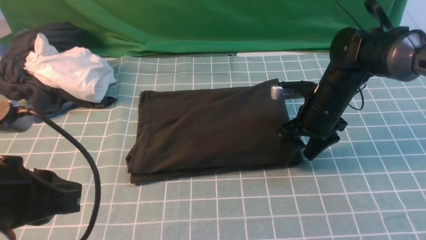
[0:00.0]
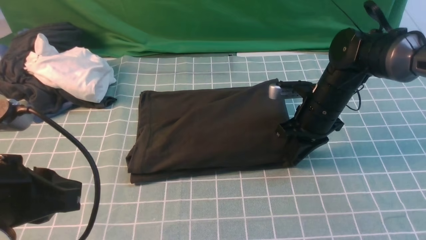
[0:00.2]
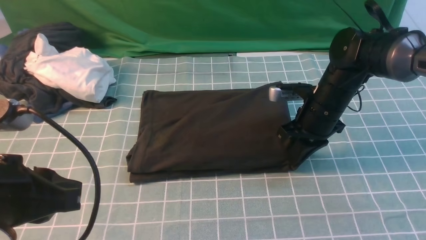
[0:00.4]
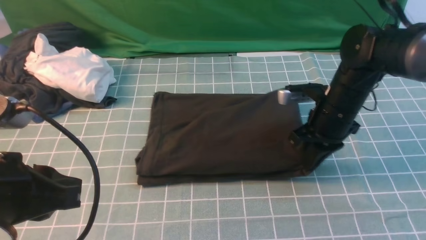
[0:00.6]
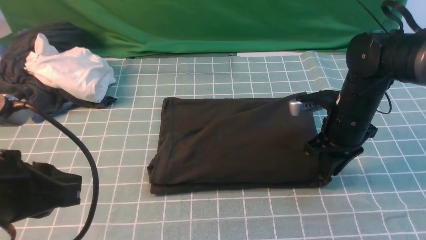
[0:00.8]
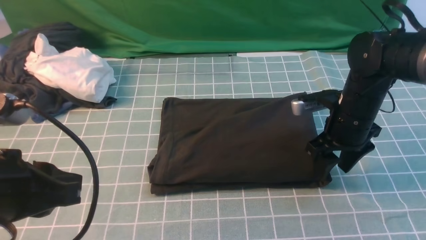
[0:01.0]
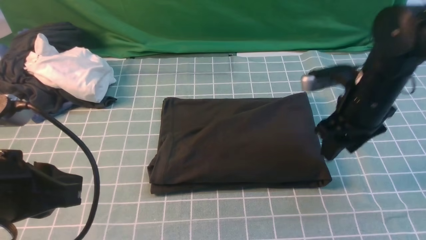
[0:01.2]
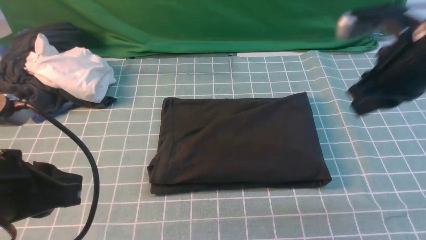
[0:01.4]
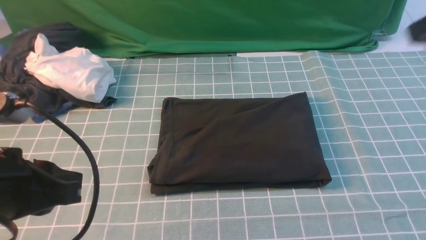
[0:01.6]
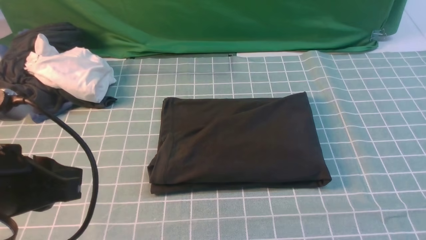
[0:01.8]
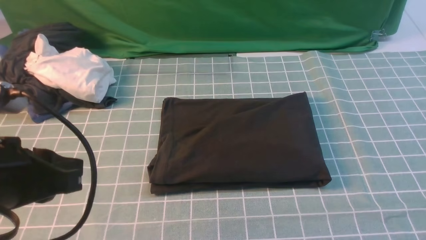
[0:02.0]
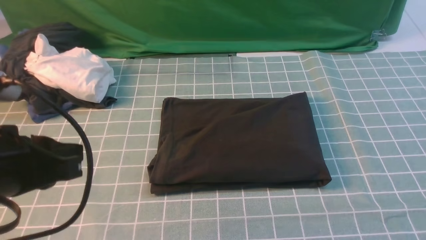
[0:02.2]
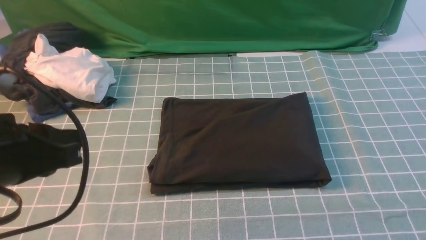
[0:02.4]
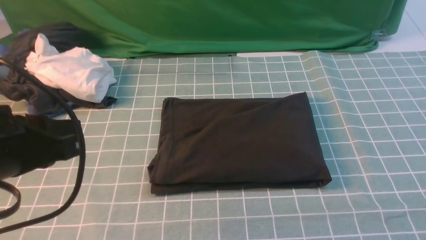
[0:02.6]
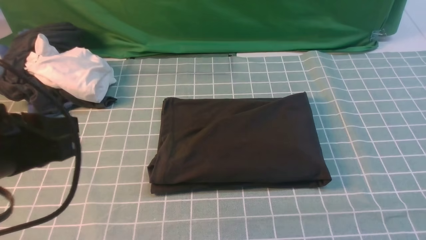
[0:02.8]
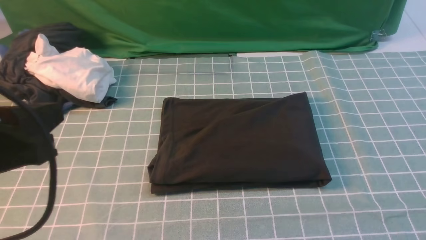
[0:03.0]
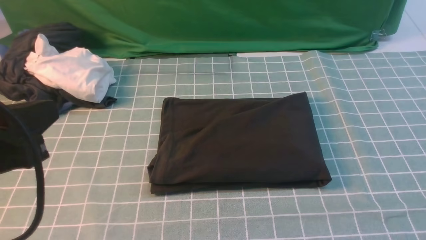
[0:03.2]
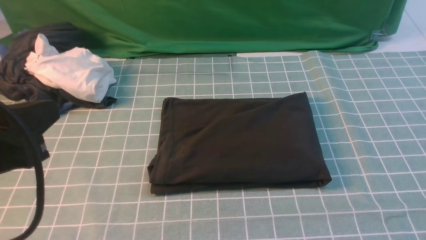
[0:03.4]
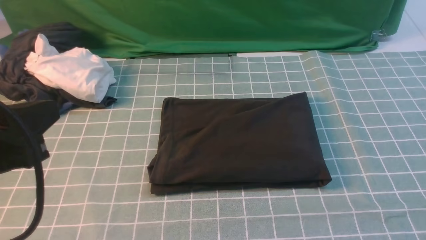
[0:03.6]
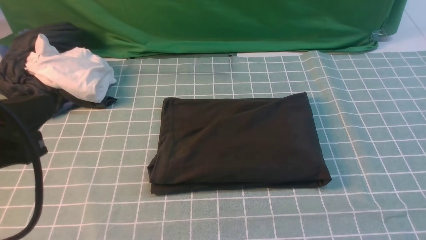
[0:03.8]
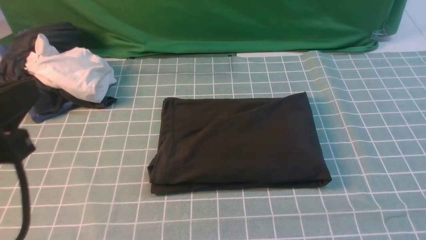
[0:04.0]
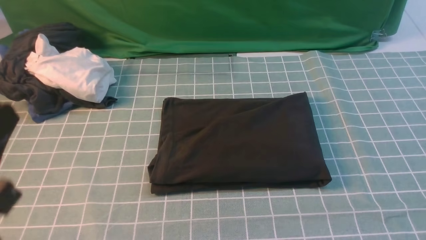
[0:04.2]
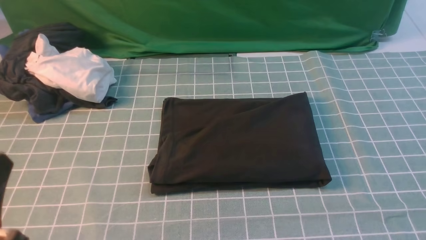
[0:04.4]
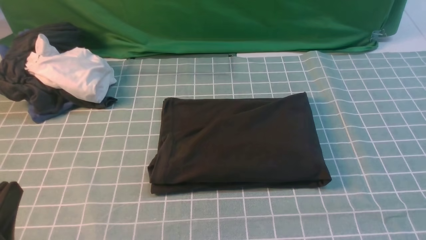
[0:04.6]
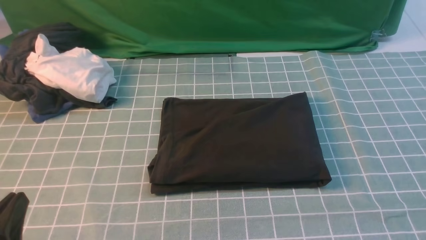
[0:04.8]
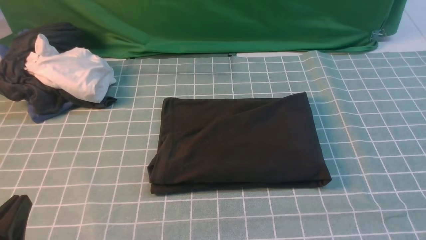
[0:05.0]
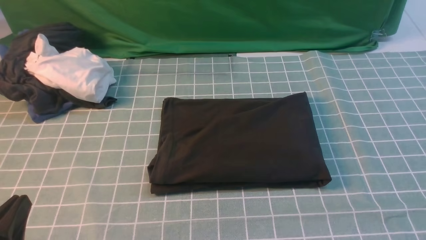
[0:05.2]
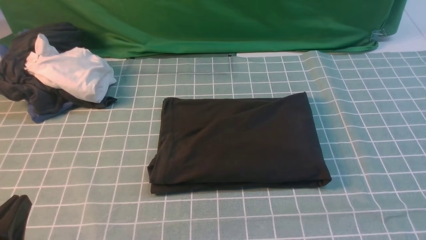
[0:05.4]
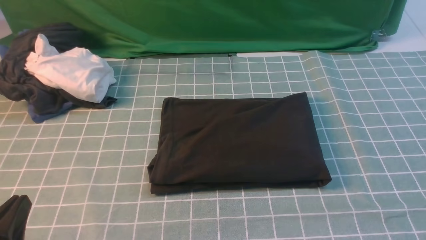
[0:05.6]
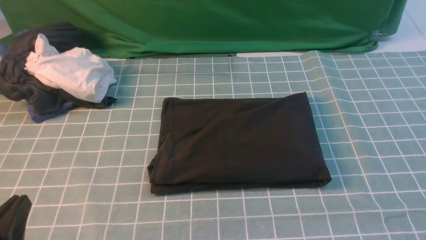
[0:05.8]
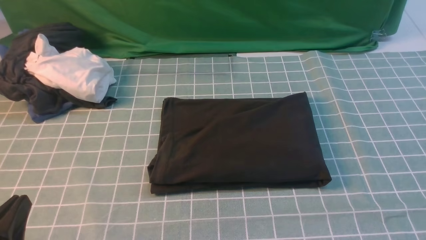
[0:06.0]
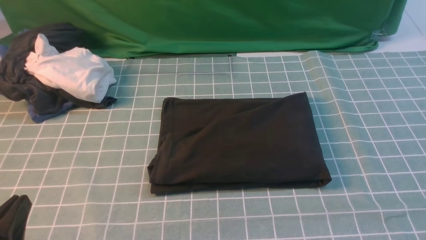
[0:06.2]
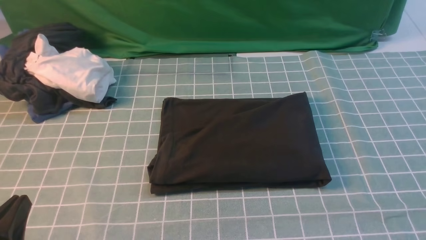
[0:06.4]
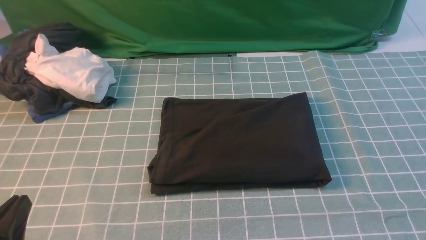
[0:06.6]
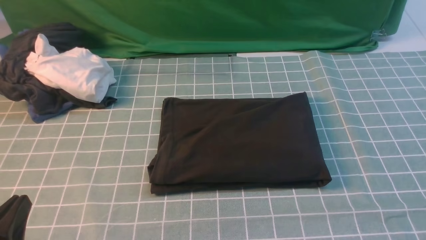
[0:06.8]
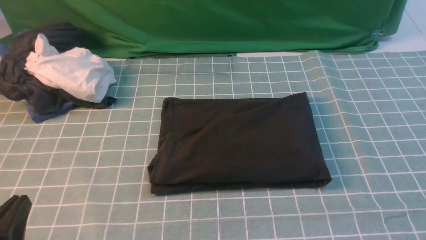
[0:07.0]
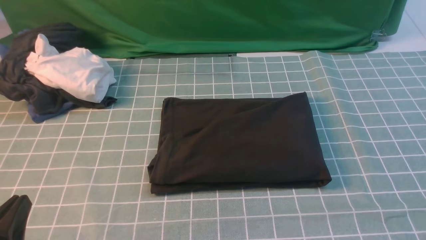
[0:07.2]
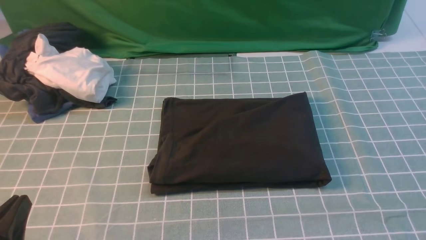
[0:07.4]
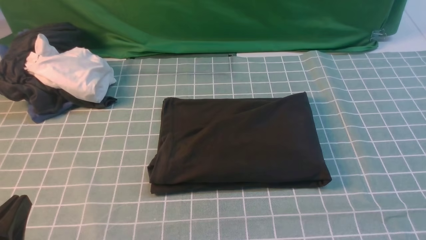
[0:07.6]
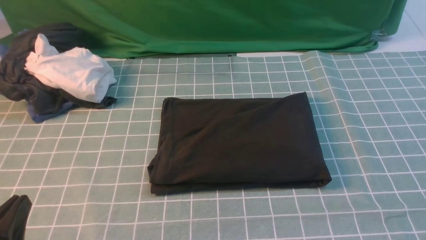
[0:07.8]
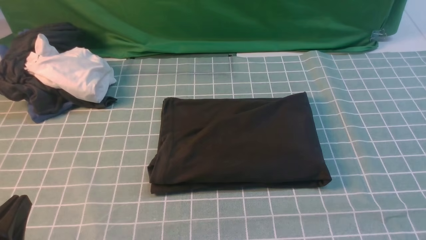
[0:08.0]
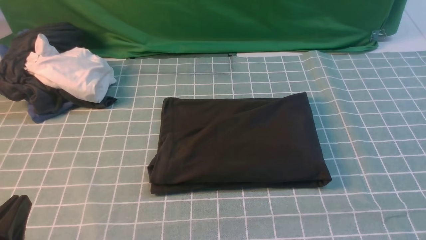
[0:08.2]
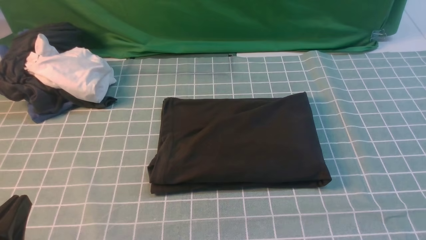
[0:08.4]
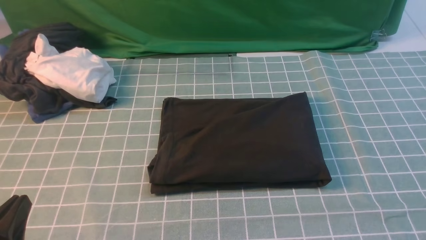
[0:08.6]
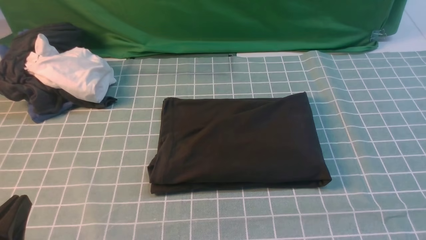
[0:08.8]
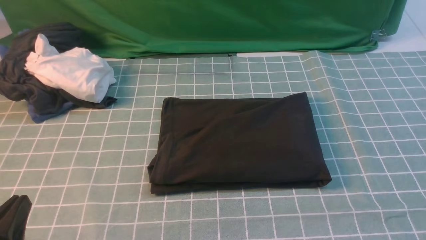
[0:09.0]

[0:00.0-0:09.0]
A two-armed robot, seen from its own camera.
0:00.0 to 0:01.6: The right gripper moves upward and backward, some 30 cm, and closes its fingers.
0:03.0 to 0:04.4: The left gripper shifts some 10 cm downward and backward.
0:04.4 to 0:06.0: The left gripper goes approximately 5 cm downward.
0:07.6 to 0:09.0: Neither gripper changes place.

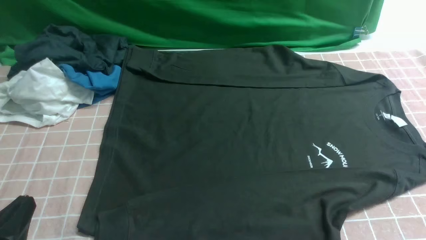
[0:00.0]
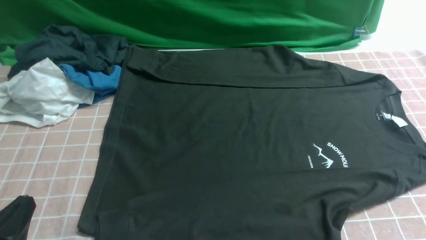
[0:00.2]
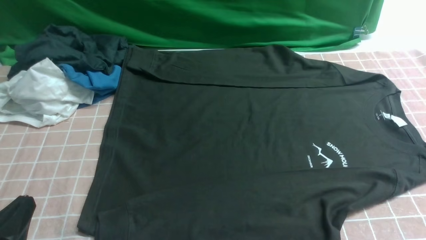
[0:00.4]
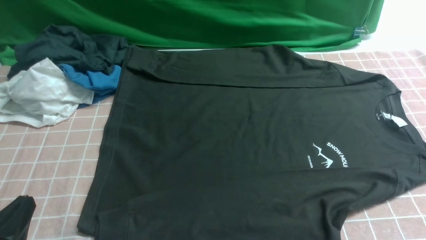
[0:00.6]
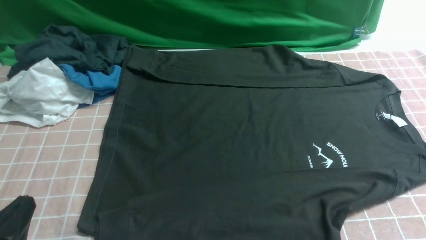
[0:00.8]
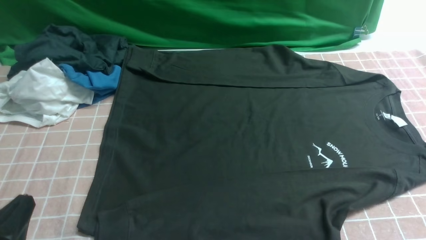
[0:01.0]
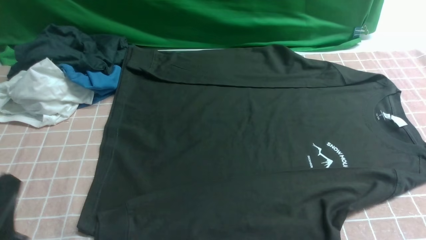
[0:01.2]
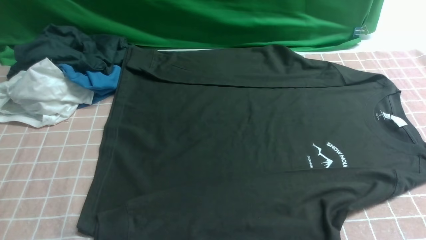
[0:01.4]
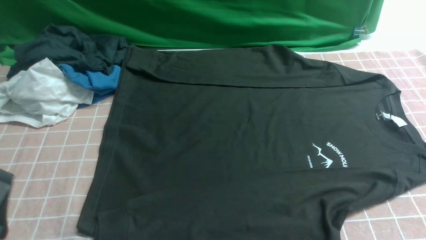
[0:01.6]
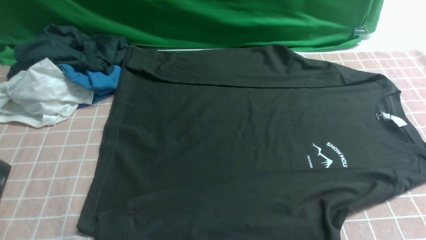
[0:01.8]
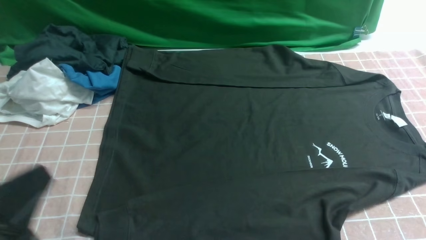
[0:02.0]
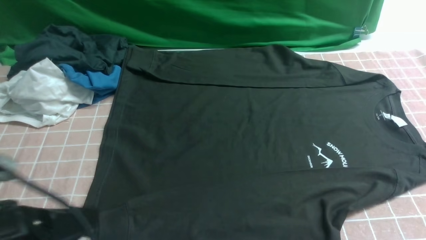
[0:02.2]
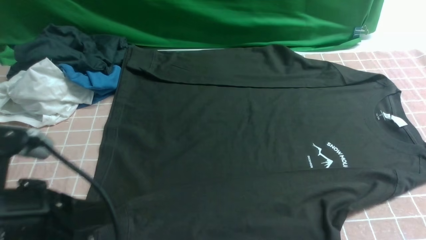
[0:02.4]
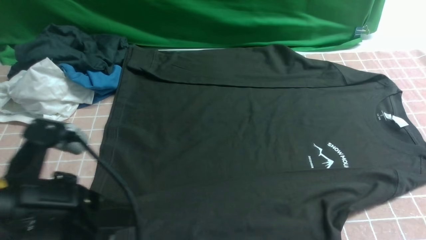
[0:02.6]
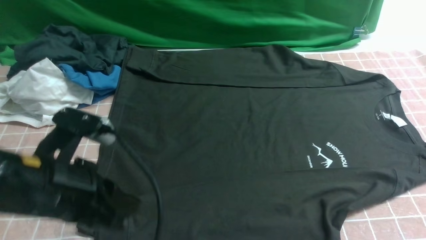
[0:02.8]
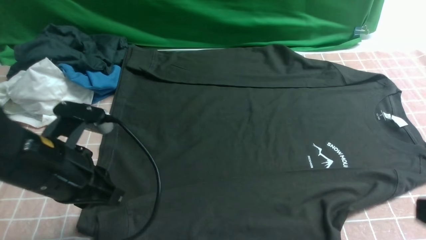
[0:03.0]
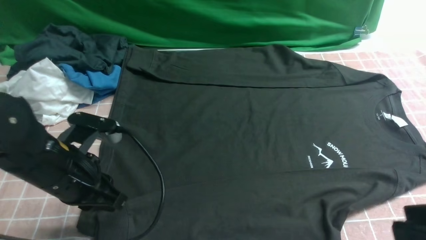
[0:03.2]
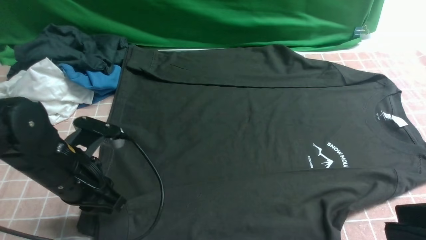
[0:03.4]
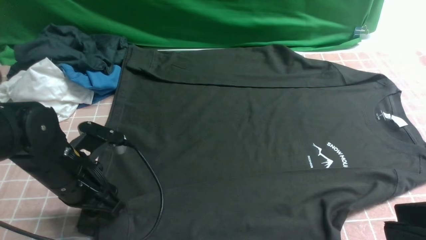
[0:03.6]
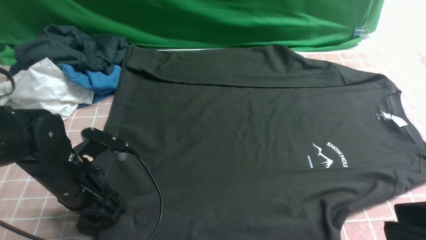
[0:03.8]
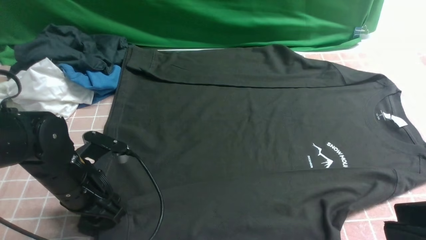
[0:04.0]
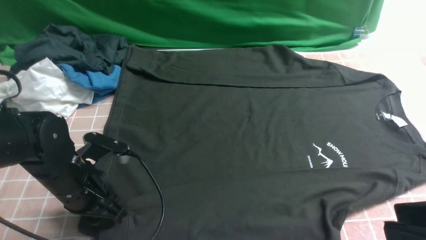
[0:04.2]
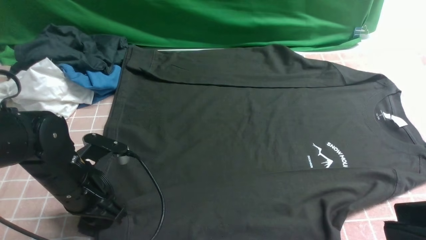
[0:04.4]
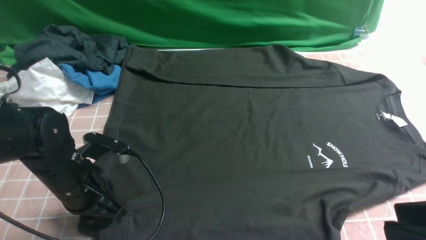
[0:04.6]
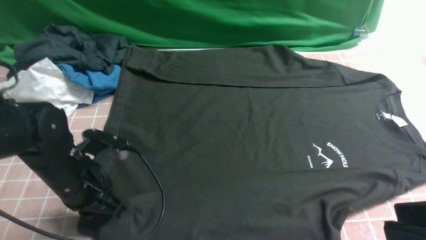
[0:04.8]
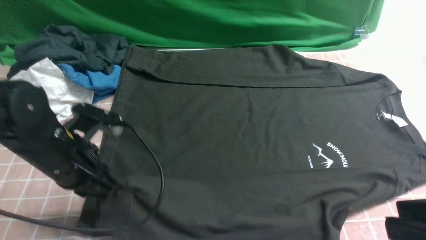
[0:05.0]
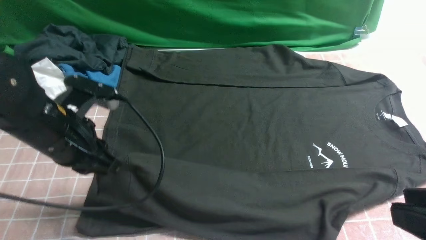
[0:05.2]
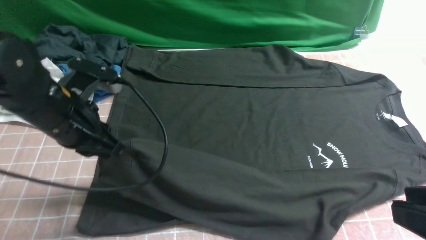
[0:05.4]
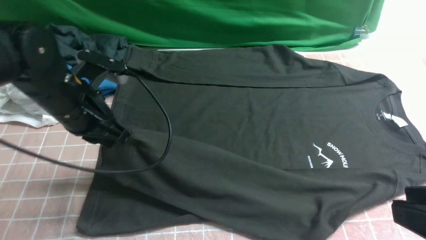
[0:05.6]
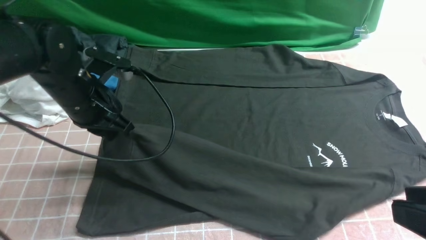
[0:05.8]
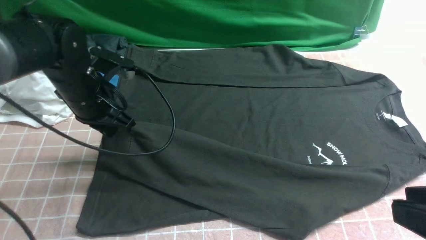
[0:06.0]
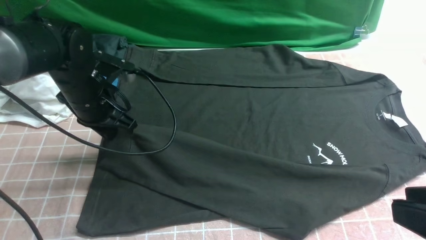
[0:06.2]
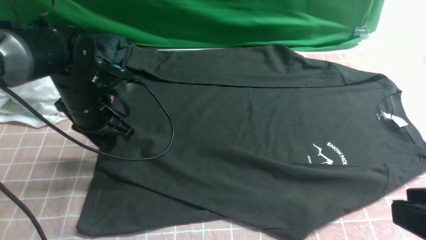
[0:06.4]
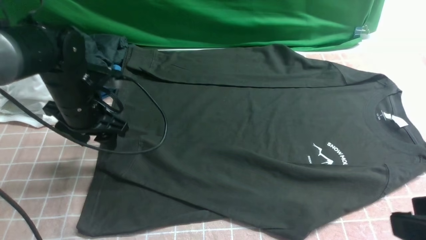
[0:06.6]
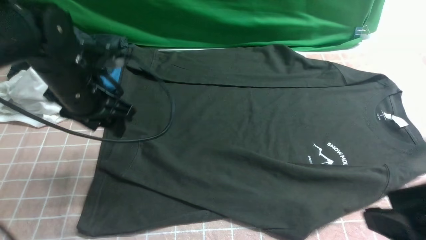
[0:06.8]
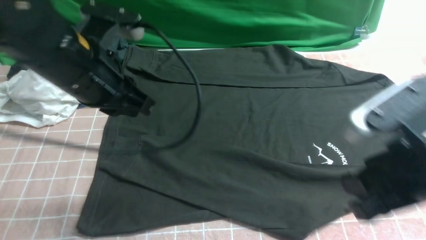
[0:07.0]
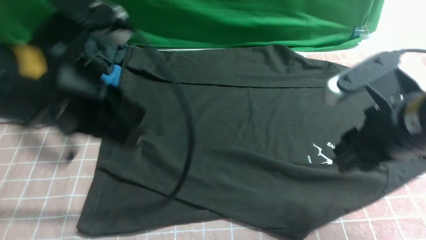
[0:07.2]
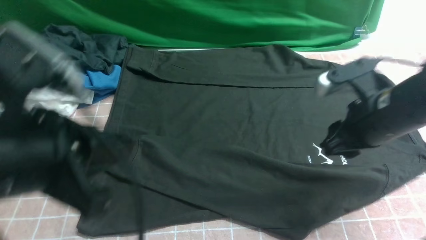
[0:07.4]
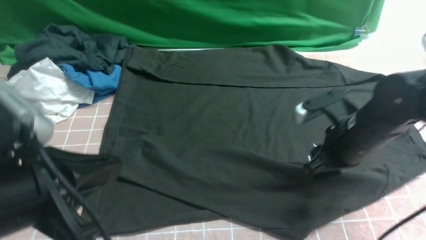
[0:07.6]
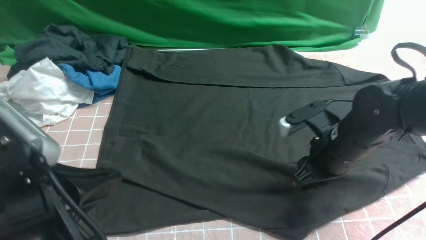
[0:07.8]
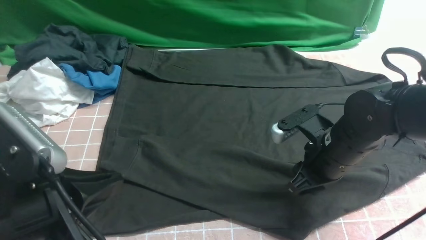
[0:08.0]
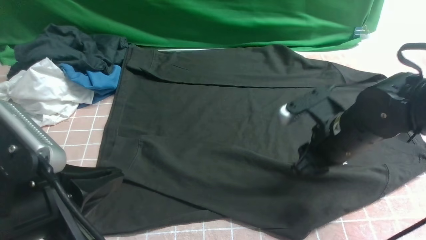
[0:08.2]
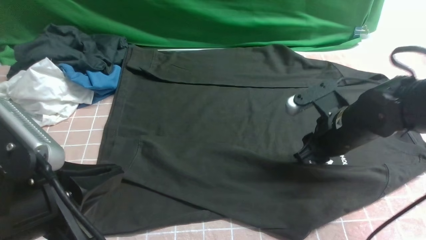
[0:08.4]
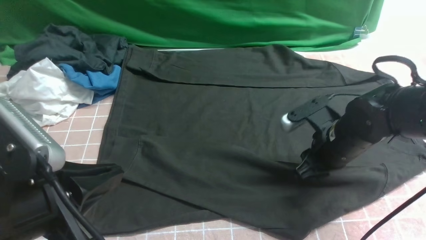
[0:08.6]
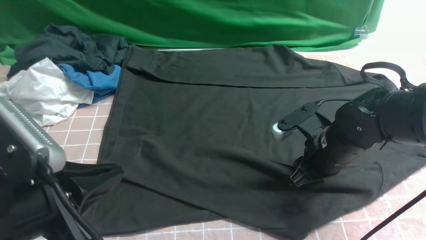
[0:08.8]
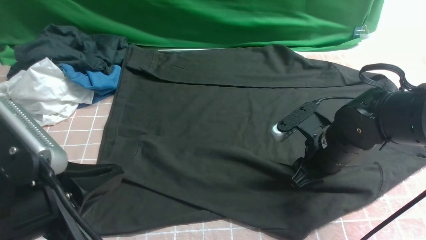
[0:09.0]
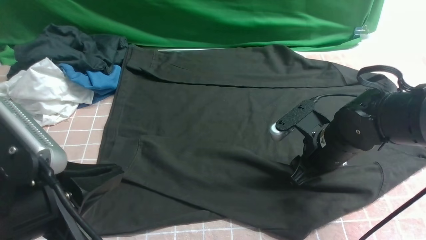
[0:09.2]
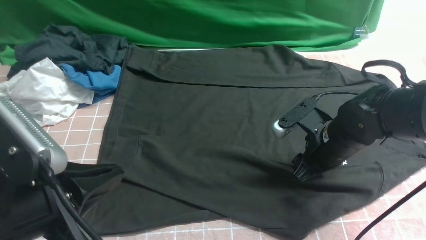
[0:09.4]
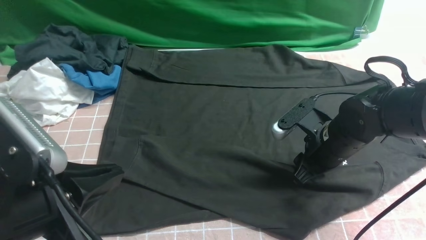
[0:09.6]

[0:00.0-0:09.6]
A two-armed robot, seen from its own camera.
Step, 0:00.0 to 0:04.6: use the left arm to clamp the cuff closest to it.
0:01.6 to 0:03.2: The right gripper is displaced upward and to the left by roughly 15 cm, while the left gripper is displaced forward by some 15 cm.
0:03.2 to 0:04.8: The left gripper opens and closes again.
0:04.8 to 0:06.4: The left gripper moves forward, approximately 10 cm, and opens.
0:06.4 to 0:08.0: The right gripper heads forward and downward, covering roughly 25 cm. The left gripper heads backward, covering about 25 cm, and closes up.
0:08.0 to 0:09.6: There are only small adjustments of the grippers.
